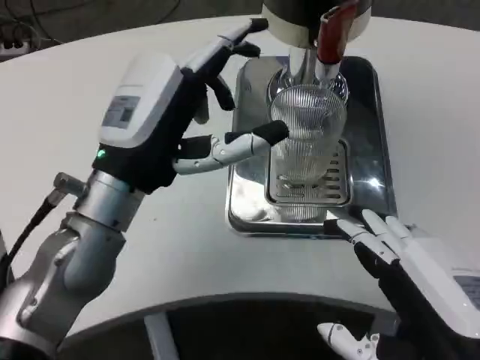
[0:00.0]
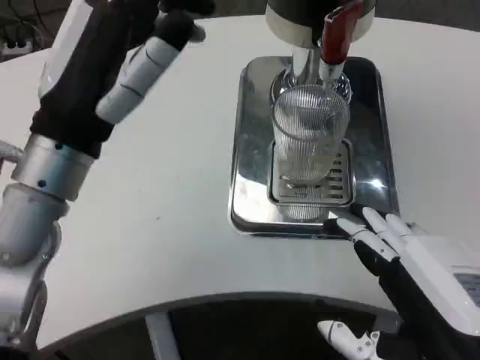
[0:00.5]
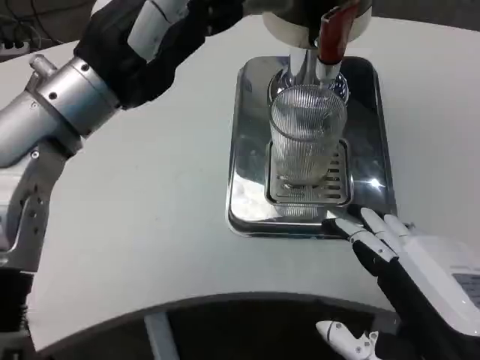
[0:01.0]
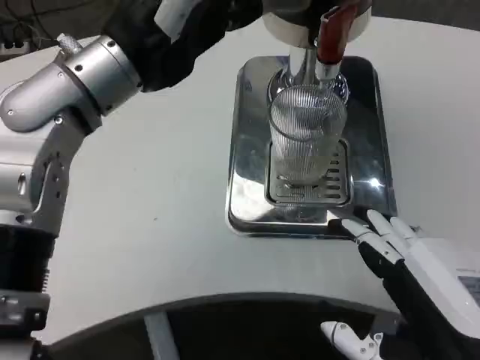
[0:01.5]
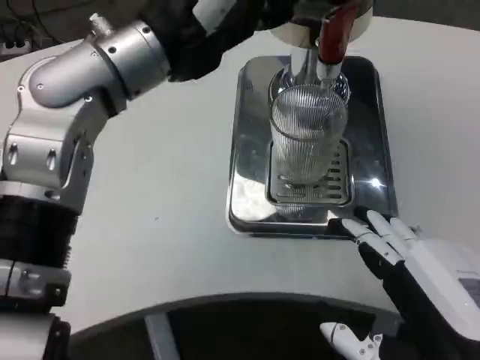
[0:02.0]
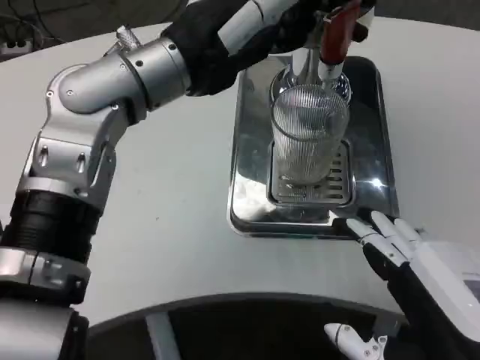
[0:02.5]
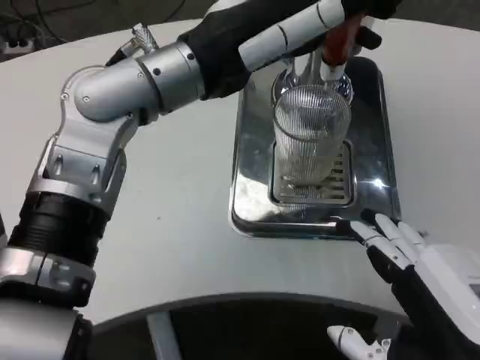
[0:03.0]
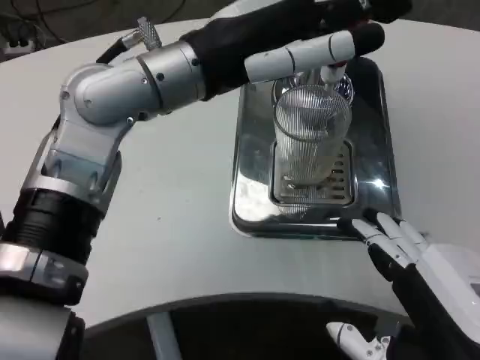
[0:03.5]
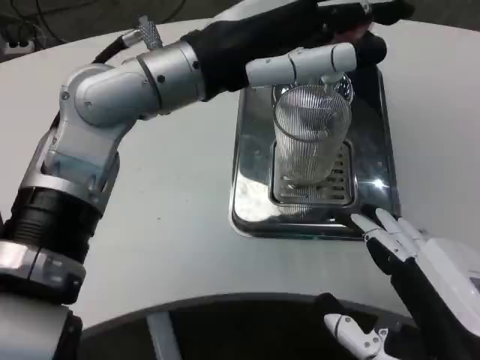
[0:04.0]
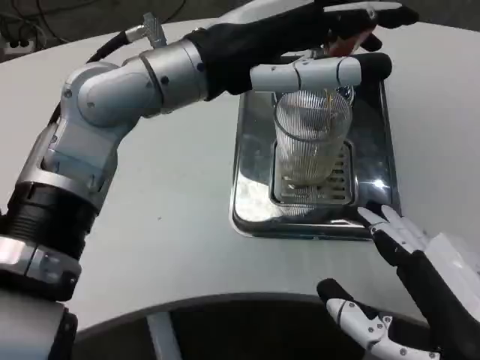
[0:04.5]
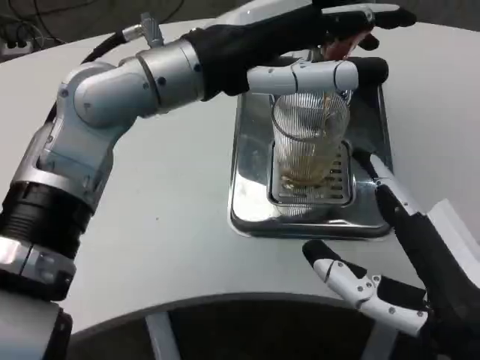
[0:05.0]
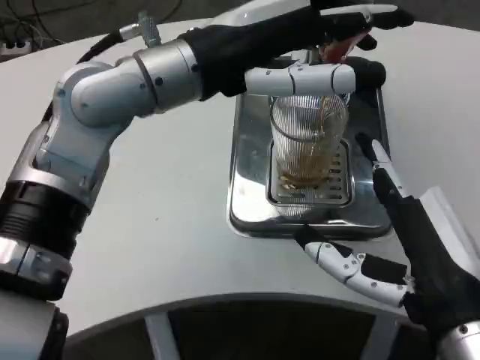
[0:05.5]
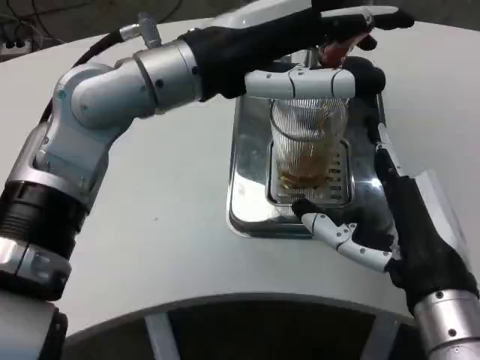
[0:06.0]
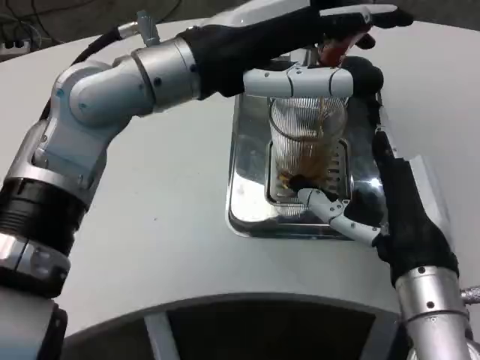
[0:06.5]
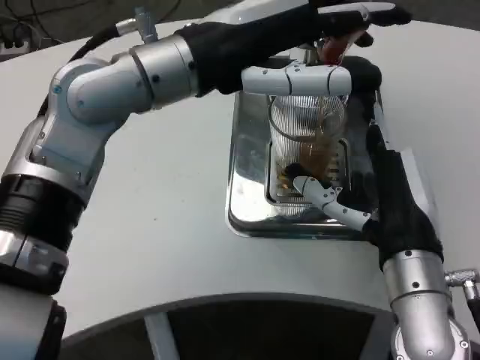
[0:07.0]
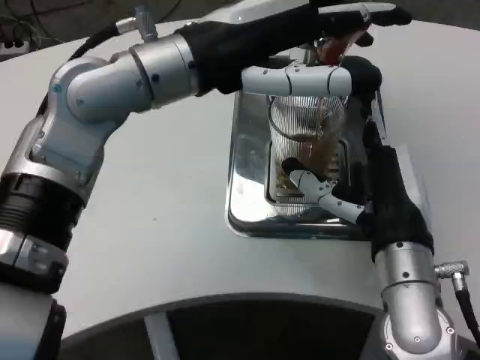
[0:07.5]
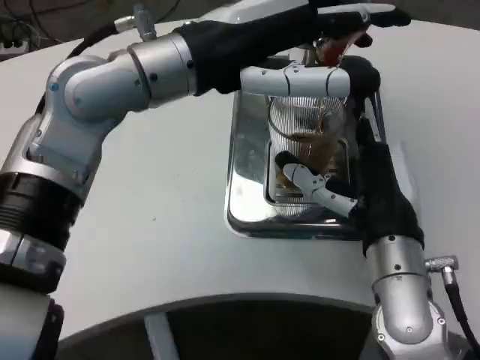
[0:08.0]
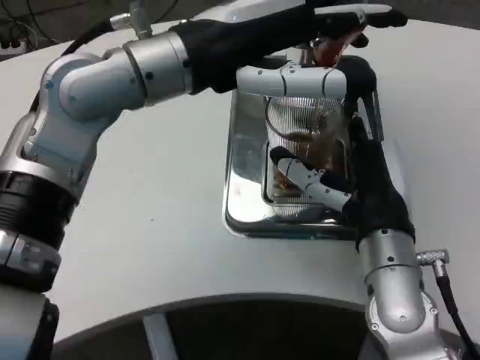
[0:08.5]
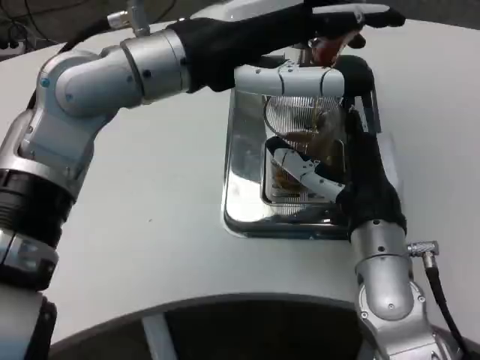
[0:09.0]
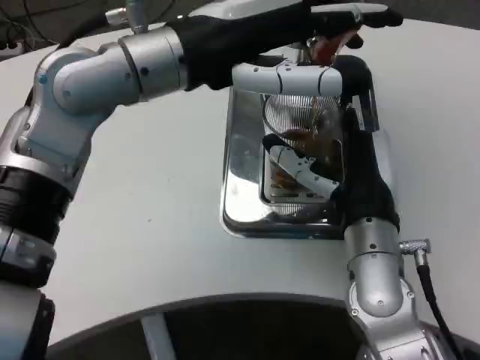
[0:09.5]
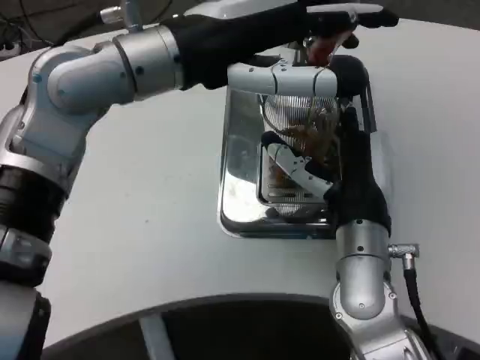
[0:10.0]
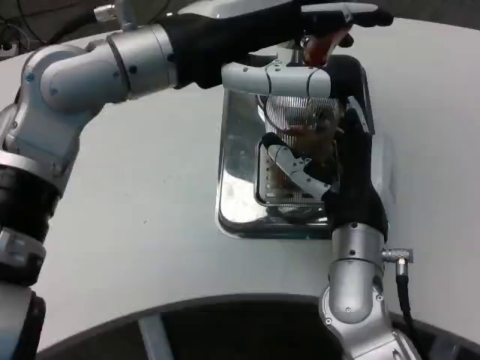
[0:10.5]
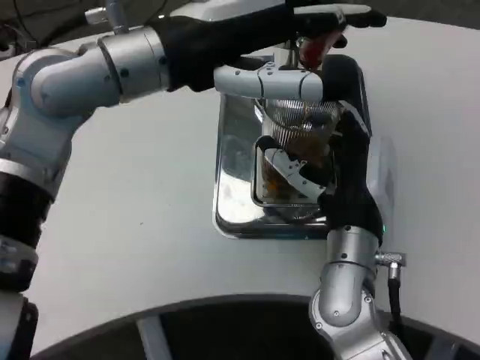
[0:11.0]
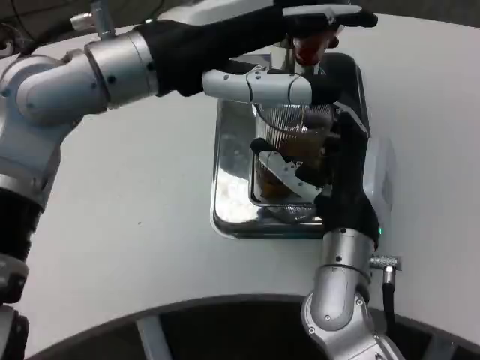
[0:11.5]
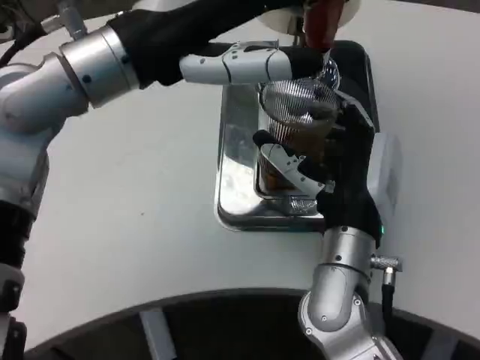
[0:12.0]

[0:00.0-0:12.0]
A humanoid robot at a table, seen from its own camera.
Task of the whole recording: Grasp the cup under the faucet to collect the drink, then remove the cup.
0:00.0 to 0:02.0: The left hand shifts roughly 15 cm upward.
0:04.0 to 0:06.0: The right hand goes about 10 cm forward.
0:06.0 to 0:08.0: The right hand moves forward, about 5 cm.

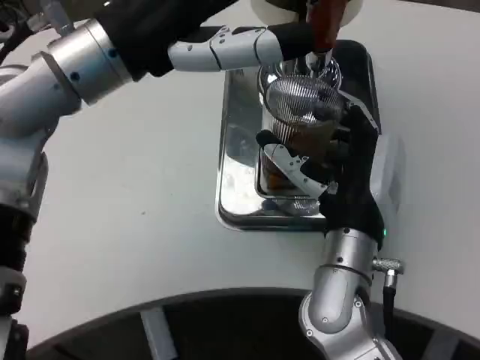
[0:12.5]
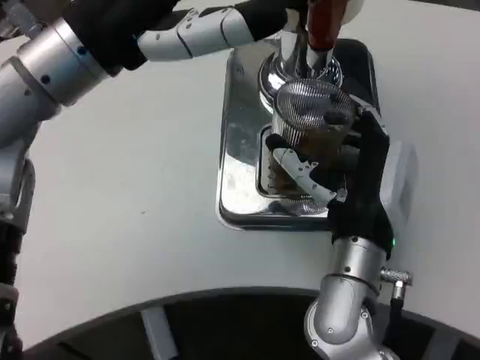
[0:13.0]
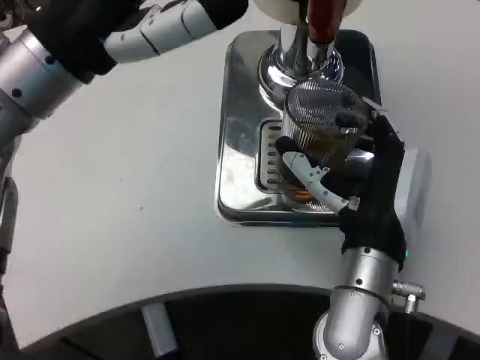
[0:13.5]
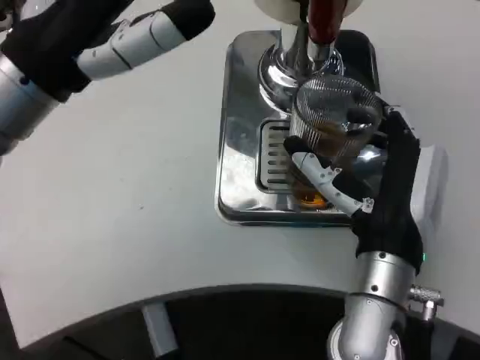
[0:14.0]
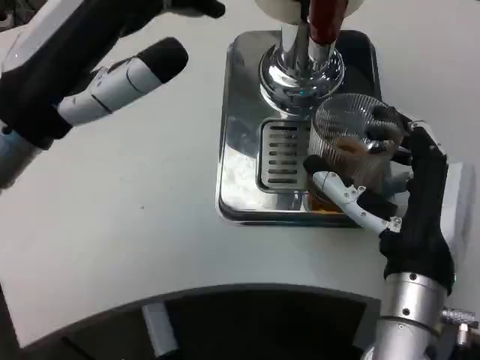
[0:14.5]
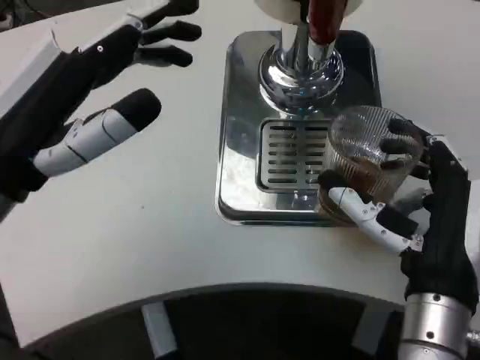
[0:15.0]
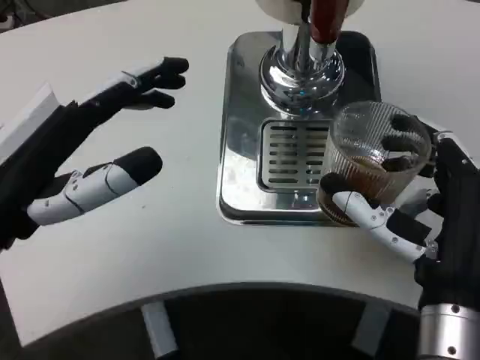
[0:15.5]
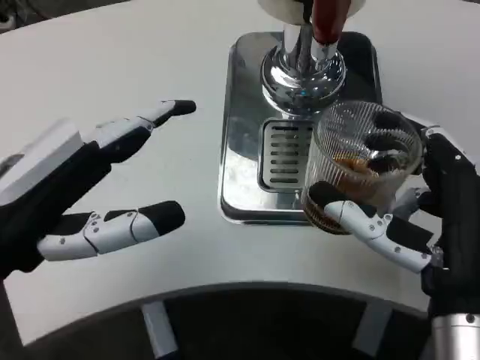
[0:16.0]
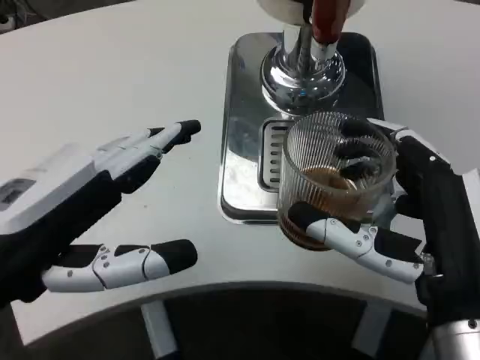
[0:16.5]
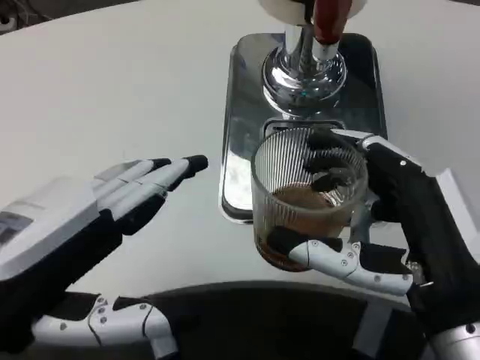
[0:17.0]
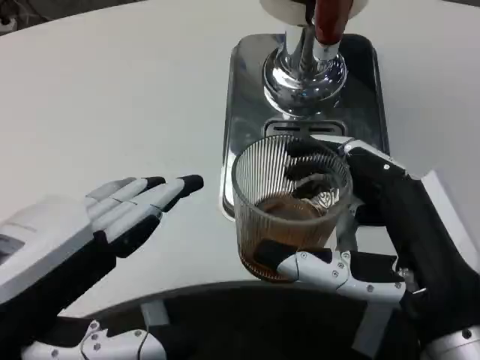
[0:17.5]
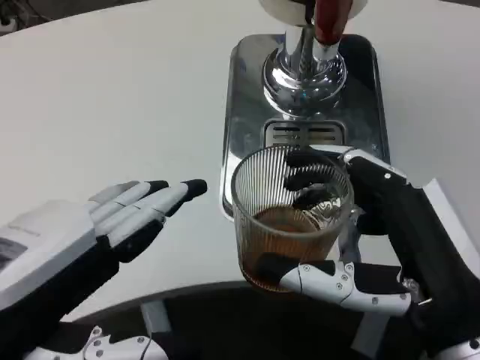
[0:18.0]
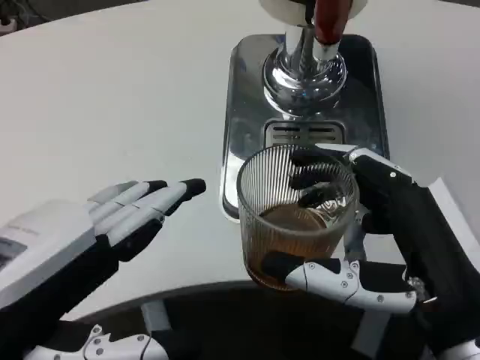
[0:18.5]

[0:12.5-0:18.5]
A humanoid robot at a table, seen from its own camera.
Task of the whole recording: Grasp the cup under the faucet to collect the drink, then remove the cup.
0:12.5 to 0:14.5: The right hand moves backward, about 5 cm, while the left hand shifts about 10 cm downward and to the left.
0:14.5 to 0:16.5: The two hands go approximately 10 cm backward.
0:16.5 to 0:18.5: The left hand goes about 5 cm backward.

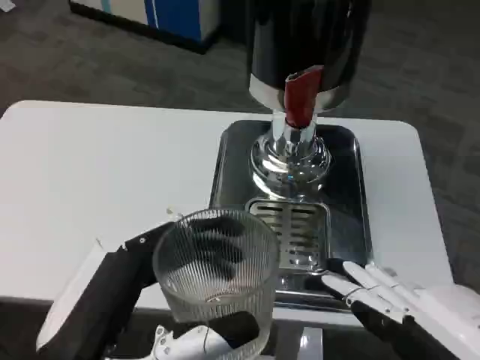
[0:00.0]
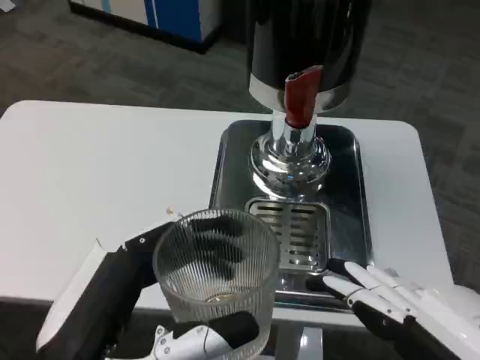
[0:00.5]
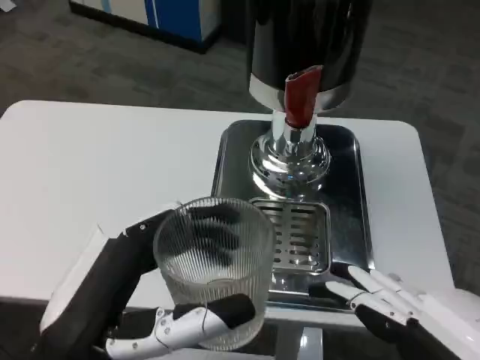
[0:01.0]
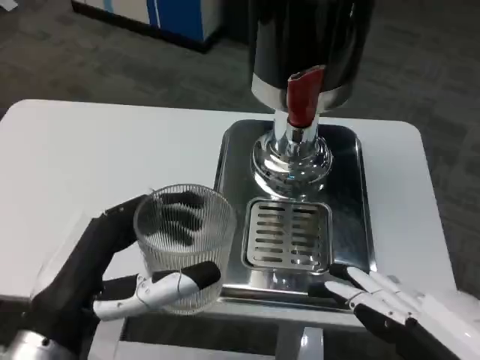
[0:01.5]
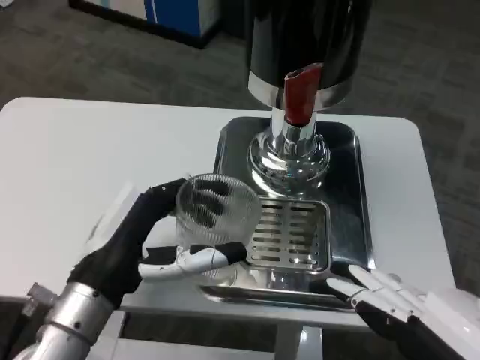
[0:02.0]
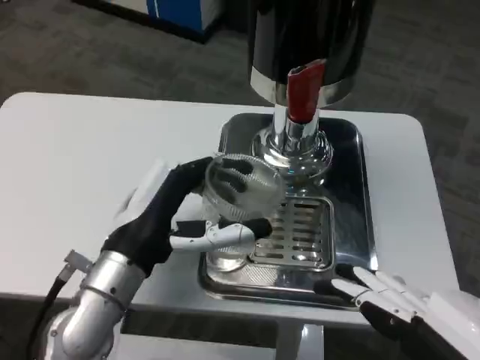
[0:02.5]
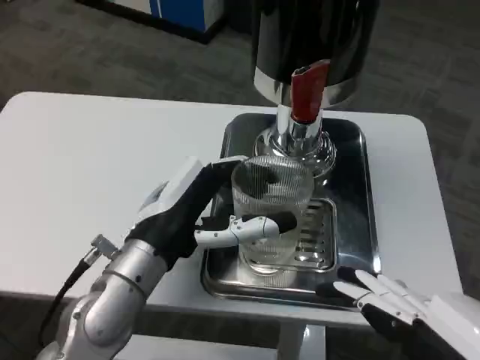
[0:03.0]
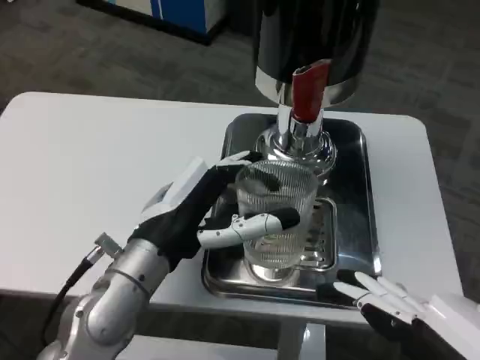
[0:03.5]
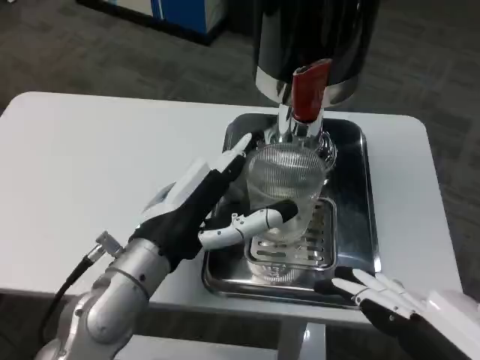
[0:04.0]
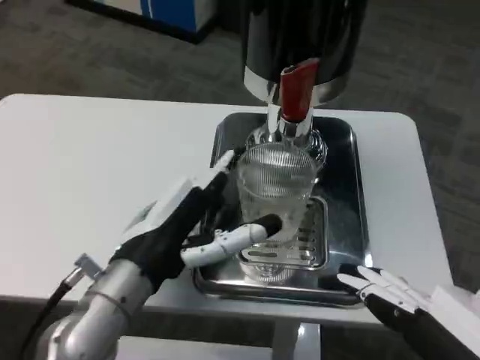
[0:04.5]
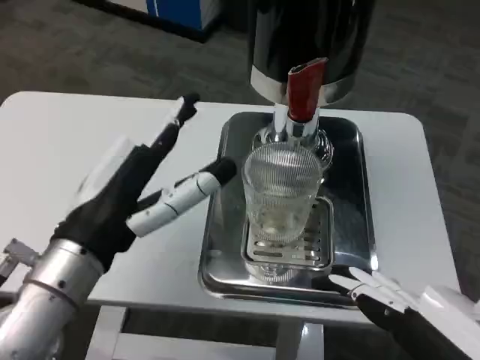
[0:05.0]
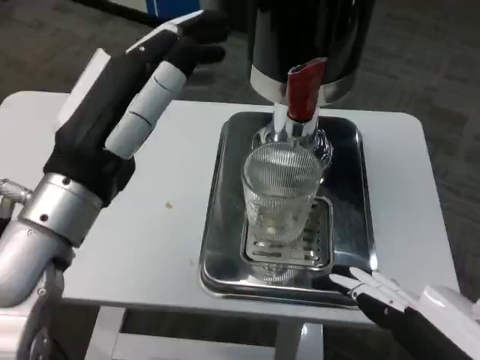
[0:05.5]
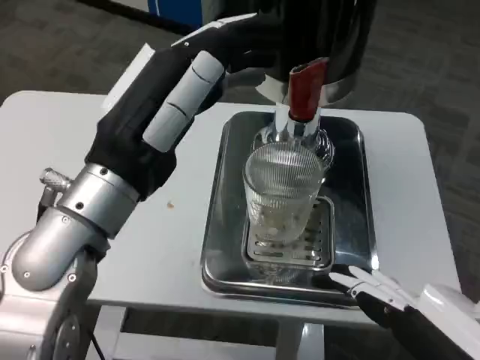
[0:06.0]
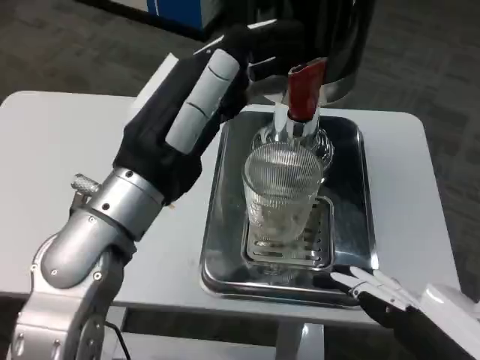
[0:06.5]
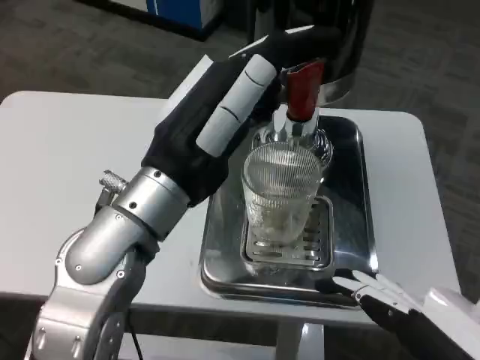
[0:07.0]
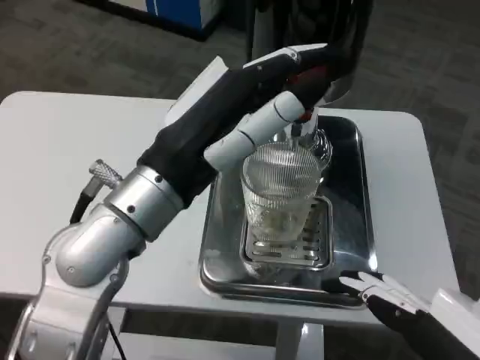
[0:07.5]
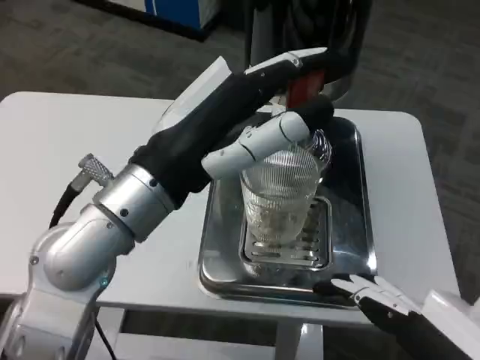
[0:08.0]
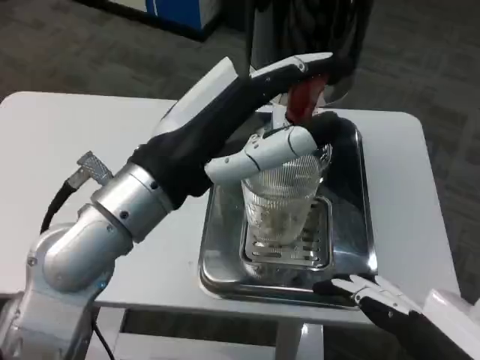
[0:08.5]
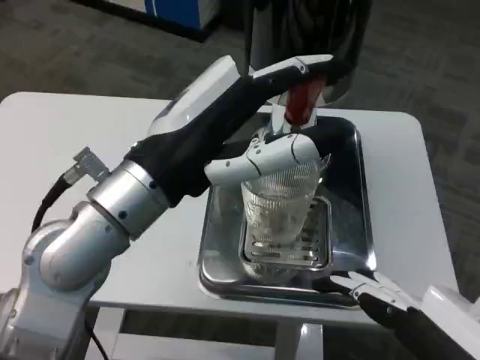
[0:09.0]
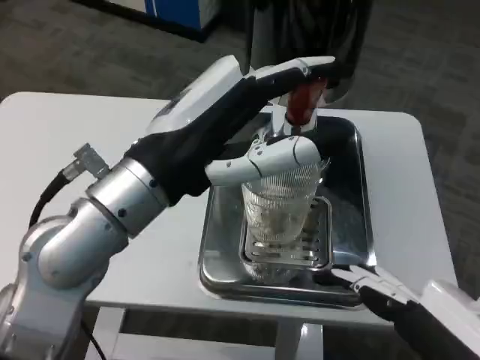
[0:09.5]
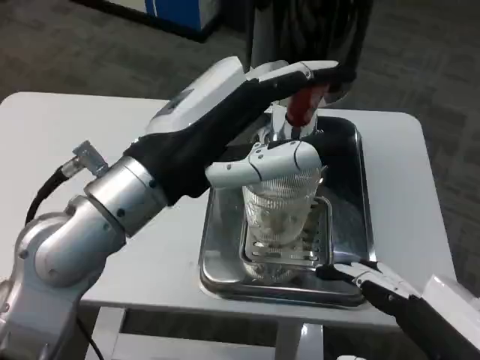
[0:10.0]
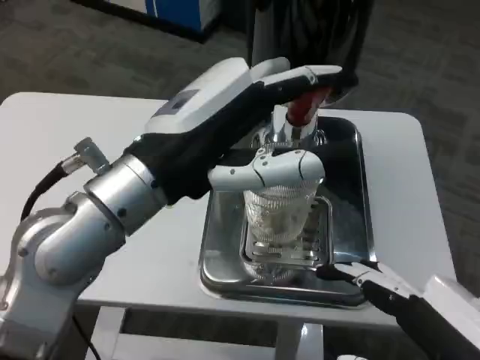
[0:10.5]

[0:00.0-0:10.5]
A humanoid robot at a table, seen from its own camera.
Task of the whole recording: Grasp the cup under the faucet to collect the drink, then remove the cup.
0:00.0 to 0:02.0: The left hand heads forward, covering roughly 15 cm.
0:02.0 to 0:04.0: The left hand moves about 5 cm.
0:04.0 to 0:06.5: The left hand goes about 10 cm upward.
